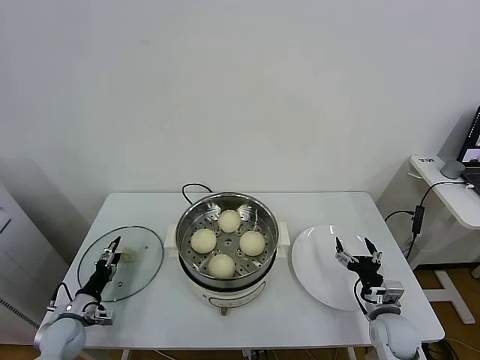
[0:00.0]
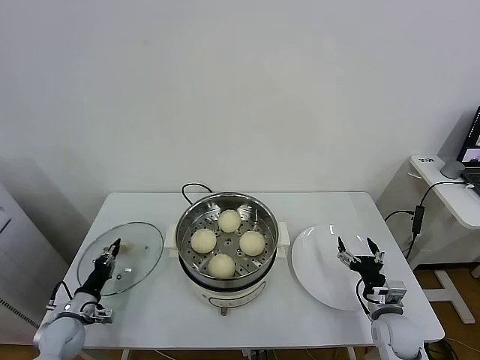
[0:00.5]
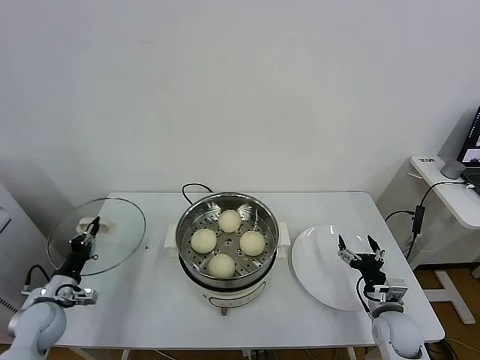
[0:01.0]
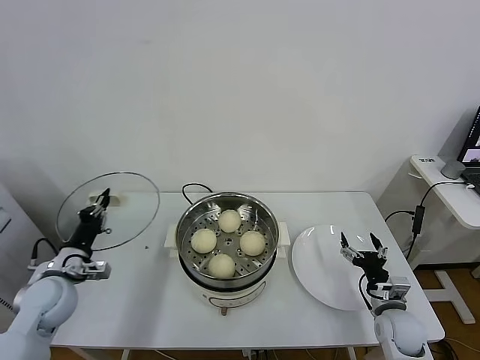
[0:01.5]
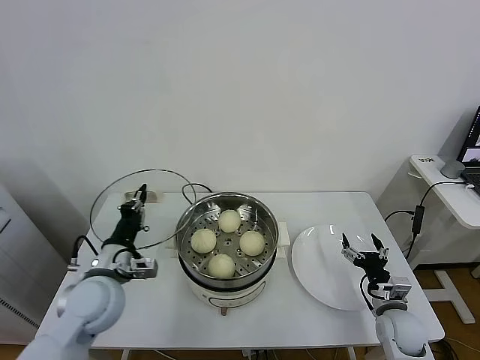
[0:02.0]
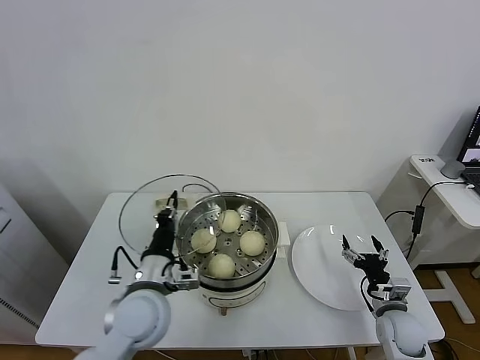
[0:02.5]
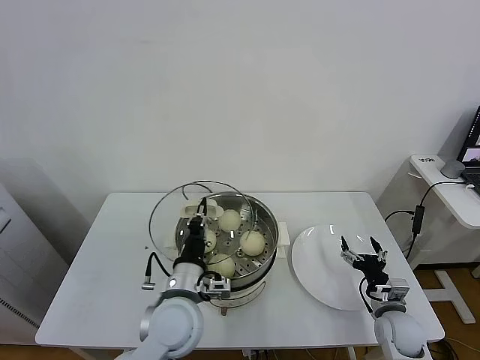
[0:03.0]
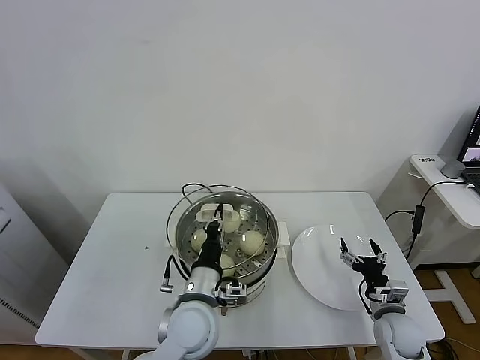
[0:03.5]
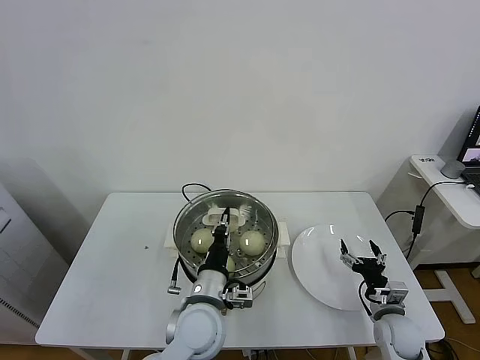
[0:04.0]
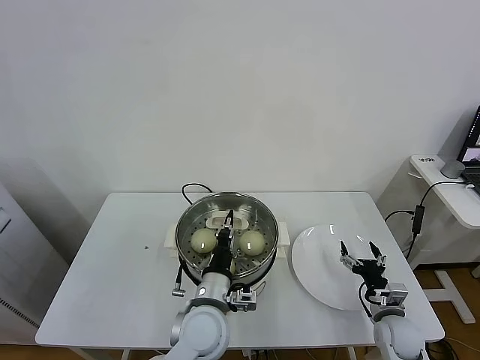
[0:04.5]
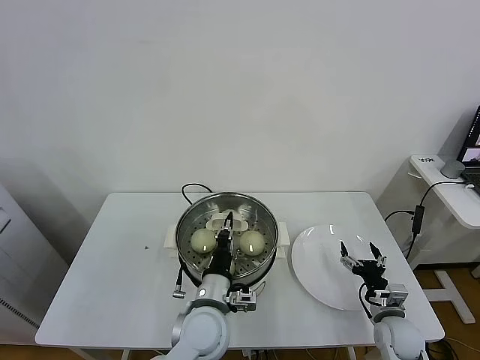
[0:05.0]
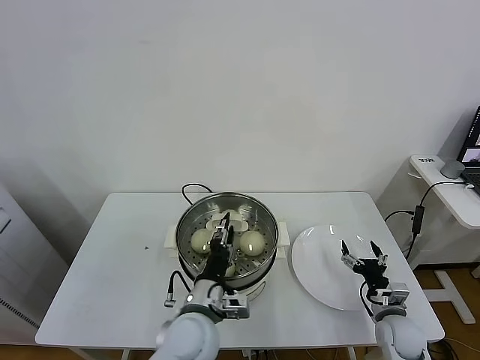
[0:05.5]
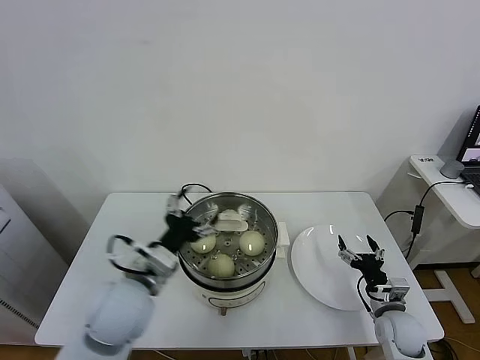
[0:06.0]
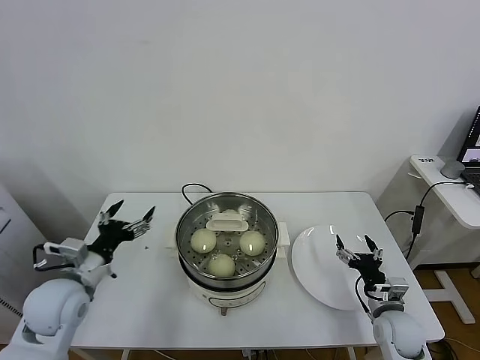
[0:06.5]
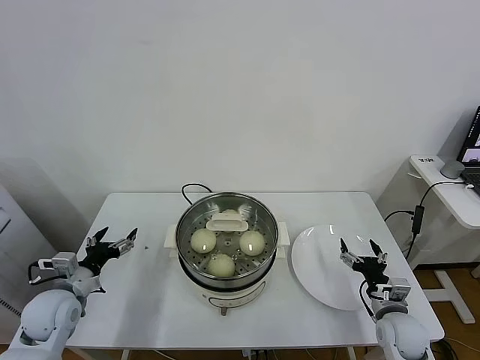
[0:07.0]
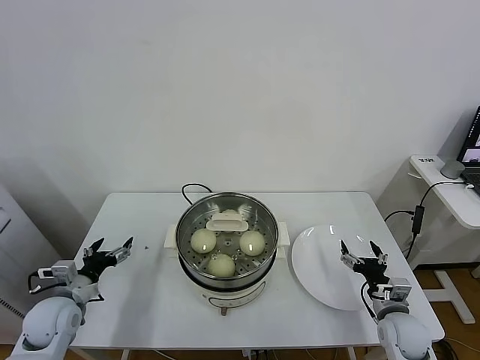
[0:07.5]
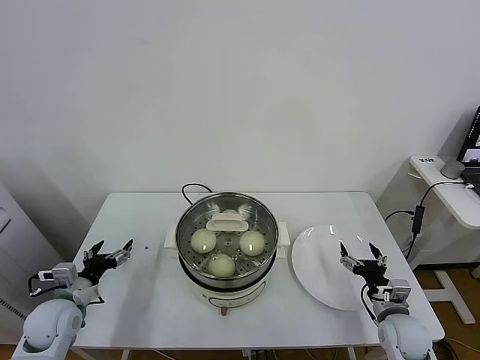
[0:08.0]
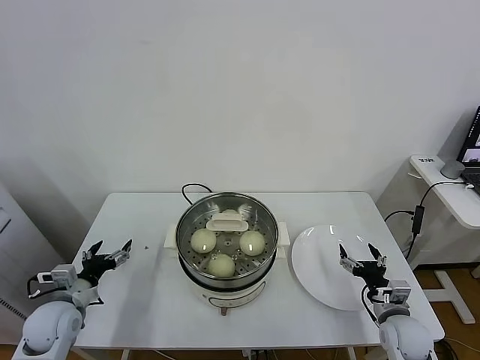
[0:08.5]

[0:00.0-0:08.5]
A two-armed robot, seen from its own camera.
Task of the whole recording: take steamed baozi put them in steamer.
Step, 0:01.0 to 0:05.5: Place the pot lid on the steamer with left gripper.
0:00.0 to 0:02.0: The left gripper goes about 25 cm upward and to the right, and closes up.
0:02.0 to 0:04.0: The left gripper travels to the right by some 20 cm.
0:04.0 to 0:06.5: The left gripper is displaced to the left by about 25 cm, and opens its fingers.
0:06.5 to 0:08.5: The left gripper moves downward and to the left, roughly 15 cm.
